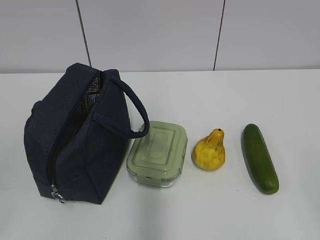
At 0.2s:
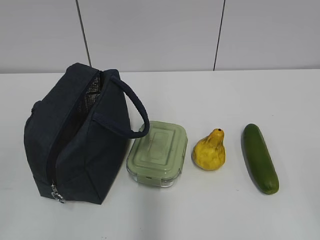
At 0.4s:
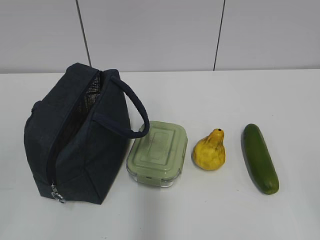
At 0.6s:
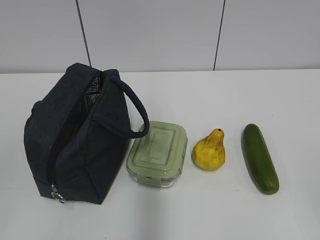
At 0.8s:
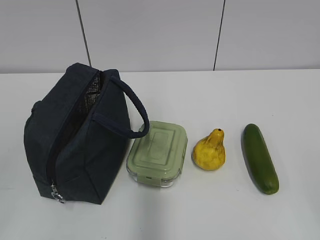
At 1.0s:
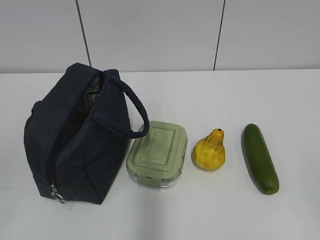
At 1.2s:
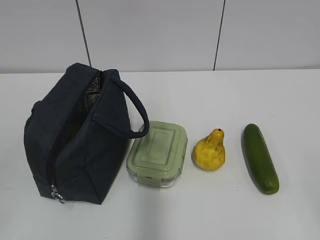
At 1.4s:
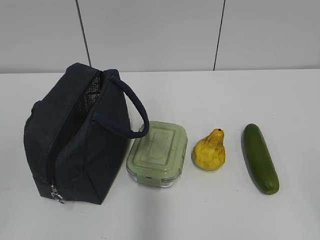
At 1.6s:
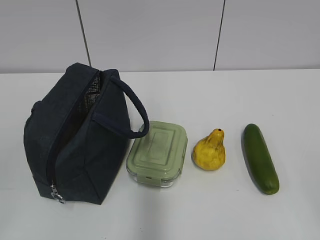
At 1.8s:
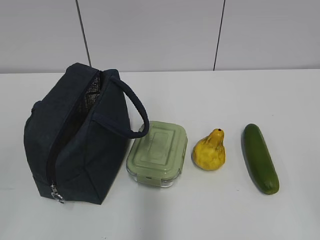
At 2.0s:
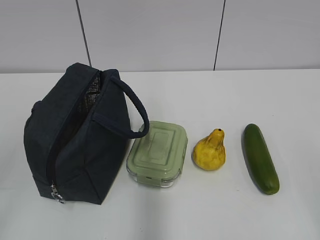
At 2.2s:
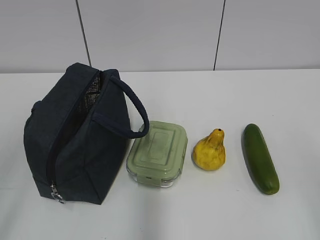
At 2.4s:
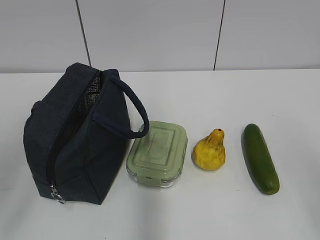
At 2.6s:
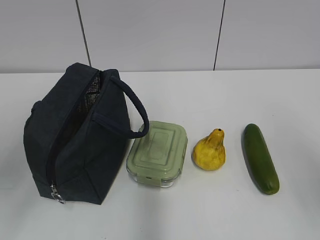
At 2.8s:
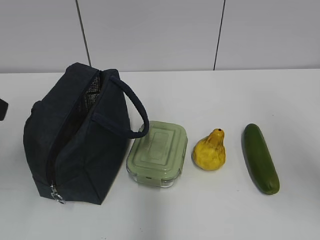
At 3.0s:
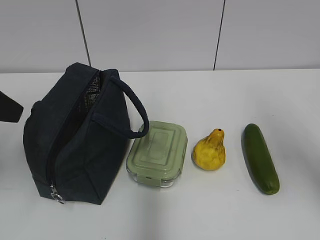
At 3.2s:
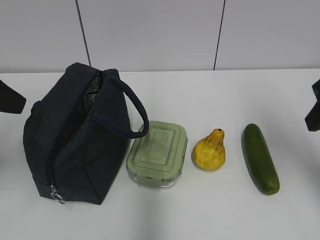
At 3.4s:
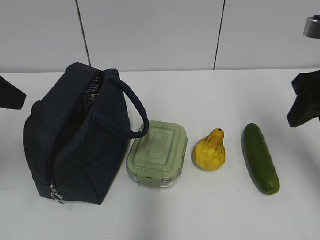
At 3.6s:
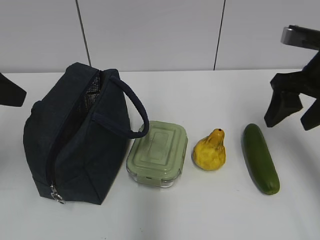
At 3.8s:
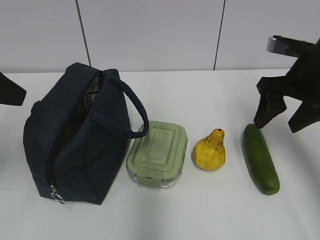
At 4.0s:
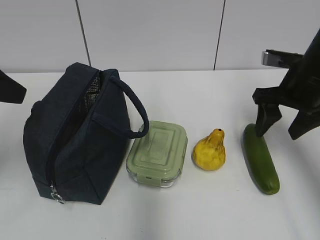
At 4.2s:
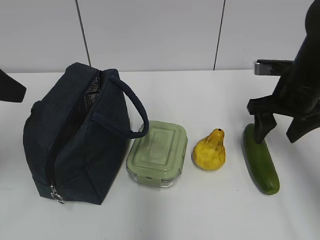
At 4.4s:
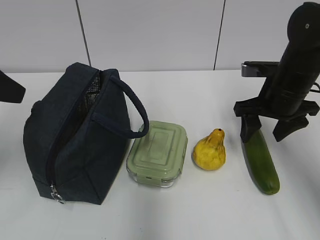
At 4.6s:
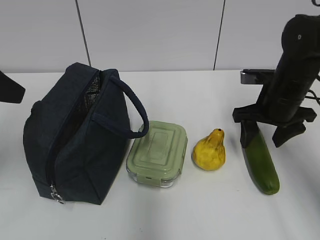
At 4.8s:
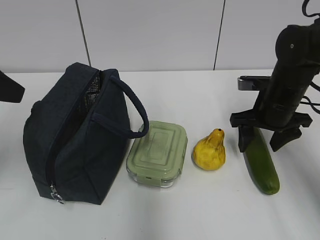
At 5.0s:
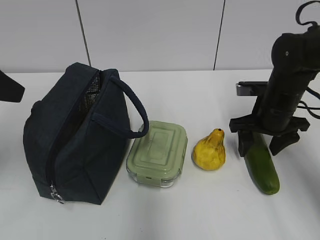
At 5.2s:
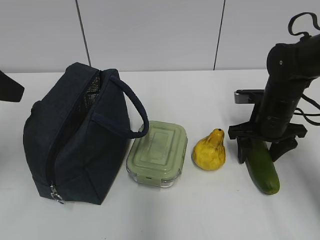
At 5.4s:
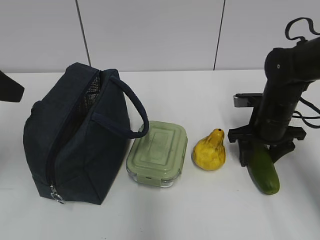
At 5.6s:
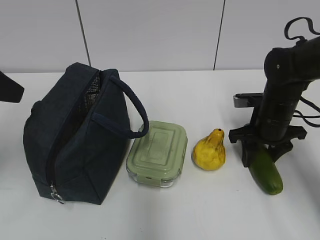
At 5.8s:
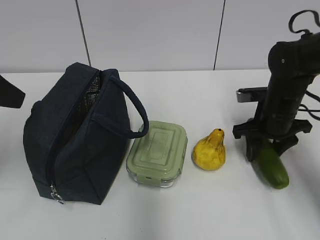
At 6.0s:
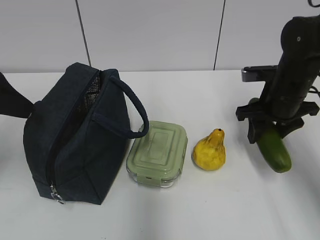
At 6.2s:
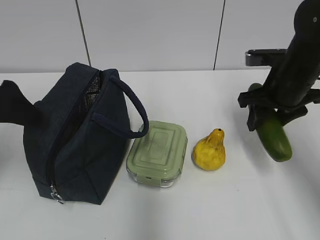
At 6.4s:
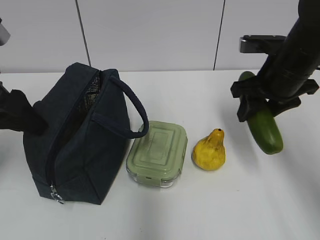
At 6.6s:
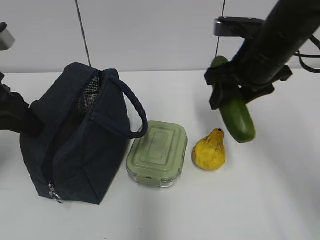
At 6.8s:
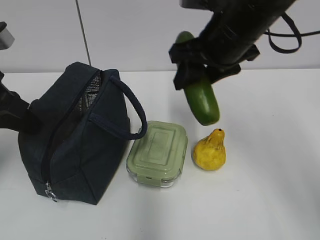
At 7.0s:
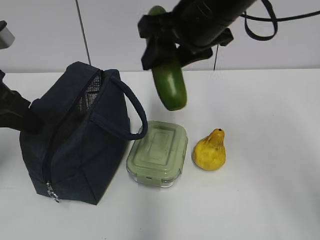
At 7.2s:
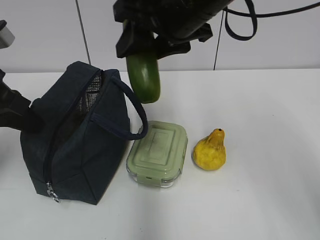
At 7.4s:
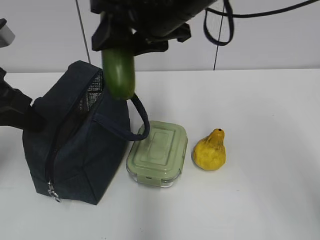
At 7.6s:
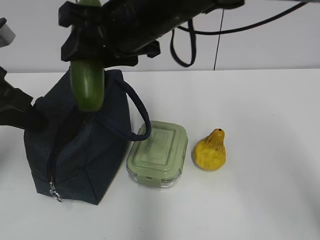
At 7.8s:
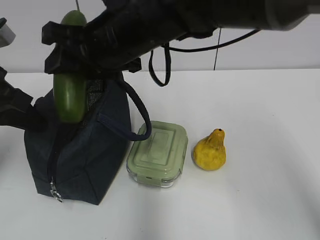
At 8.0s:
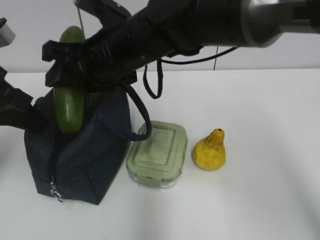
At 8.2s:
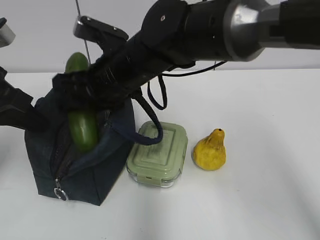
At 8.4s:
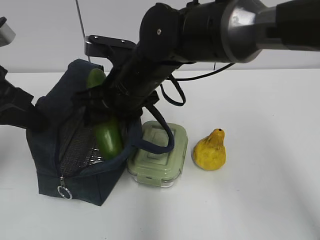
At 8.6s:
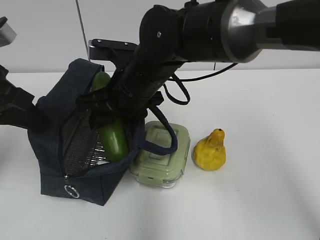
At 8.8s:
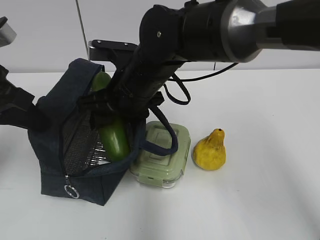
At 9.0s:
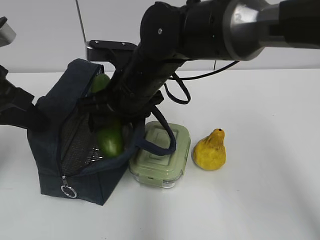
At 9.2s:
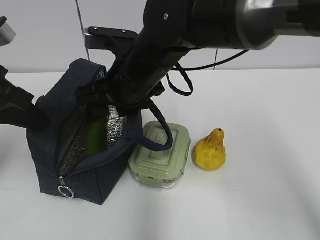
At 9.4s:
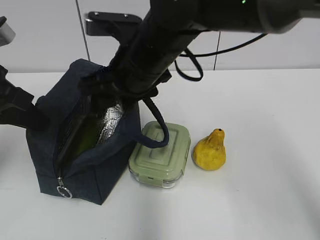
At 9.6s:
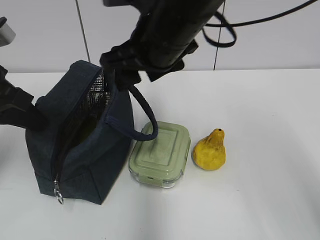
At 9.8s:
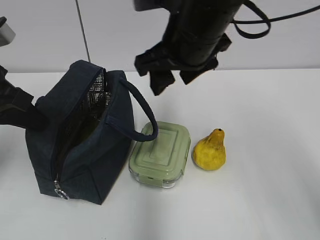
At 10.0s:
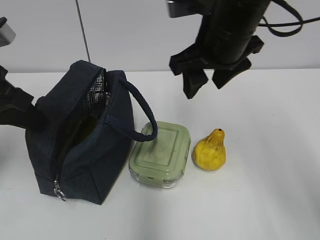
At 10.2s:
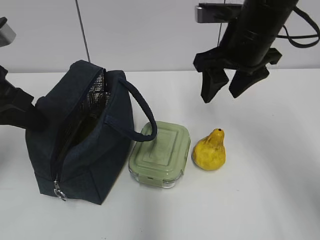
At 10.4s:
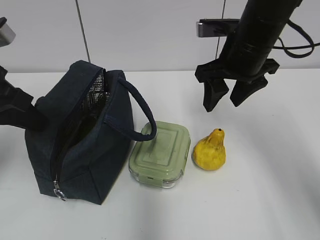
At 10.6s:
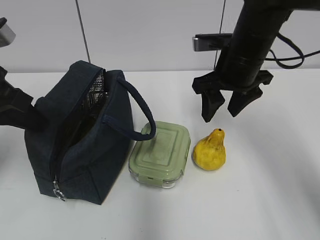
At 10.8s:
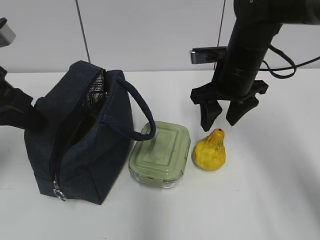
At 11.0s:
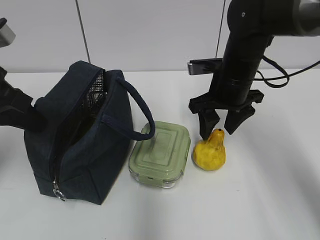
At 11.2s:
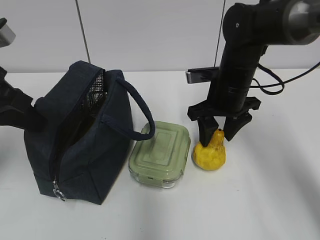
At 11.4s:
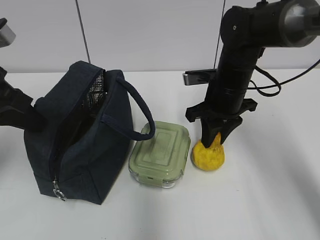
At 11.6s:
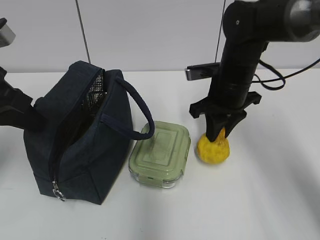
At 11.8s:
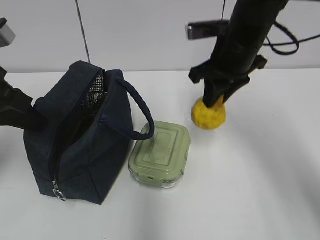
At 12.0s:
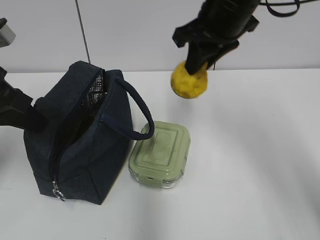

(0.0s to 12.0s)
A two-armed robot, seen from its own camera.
Step, 0.0s - 5.6s: Grab the cucumber with your right hand.
Step, 8.2s - 9.2s: Place it into the bag with your right hand.
Step, 9.4s - 11.2s: Grab the pear with your right hand.
1.6s - 3.0s: The grippers both shift forward by some 20 cm. The left gripper opens up.
3.0s - 4.4s: The right gripper heads forward and downward, covering about 20 cm.
6.0s - 7.6s: The right gripper goes approximately 25 cm to the left and upward. Meanwhile the left gripper closes its fingers.
7.6s - 9.0s: The right gripper moves downward, roughly 10 cm.
9.0s - 10.4s: The right gripper travels to the right by some 15 cm.
10.4s - 12.0s: The right gripper is displaced upward by about 5 cm, and closes its fingers.

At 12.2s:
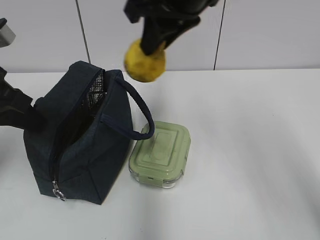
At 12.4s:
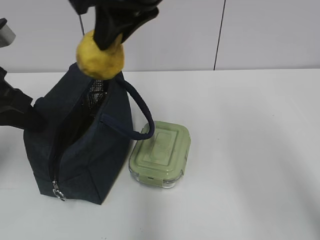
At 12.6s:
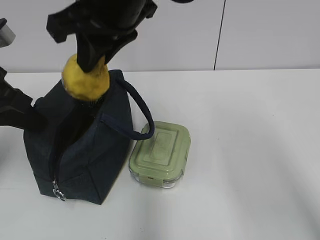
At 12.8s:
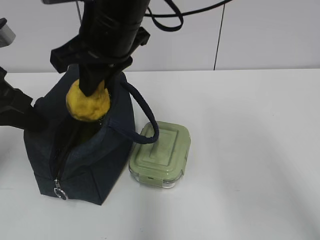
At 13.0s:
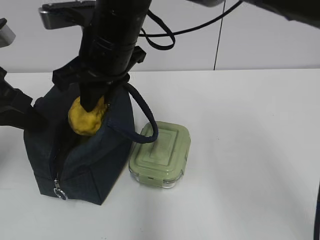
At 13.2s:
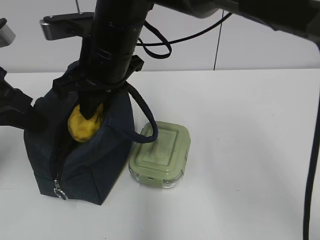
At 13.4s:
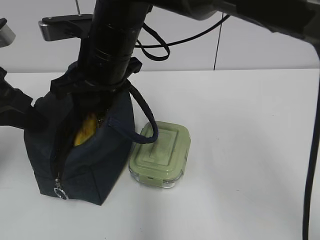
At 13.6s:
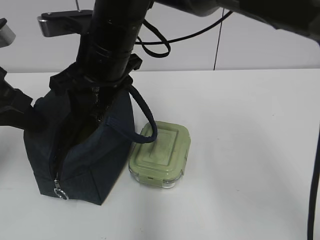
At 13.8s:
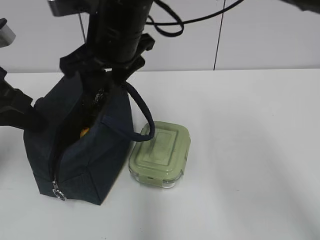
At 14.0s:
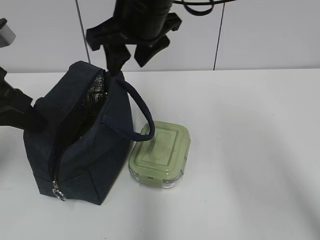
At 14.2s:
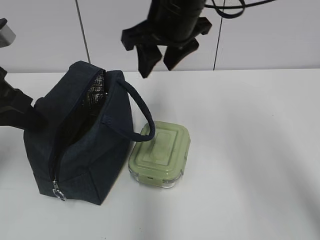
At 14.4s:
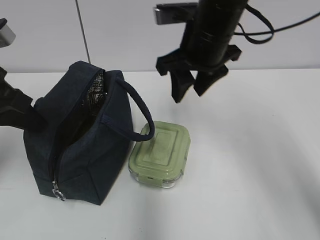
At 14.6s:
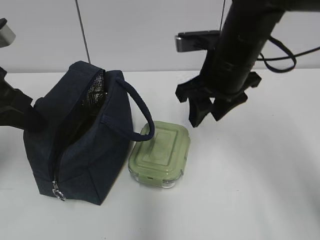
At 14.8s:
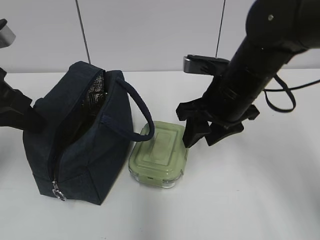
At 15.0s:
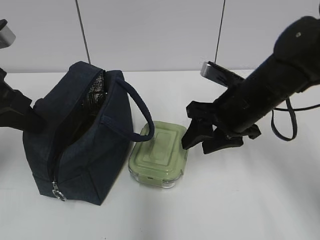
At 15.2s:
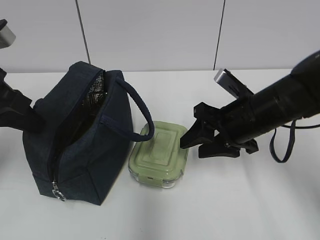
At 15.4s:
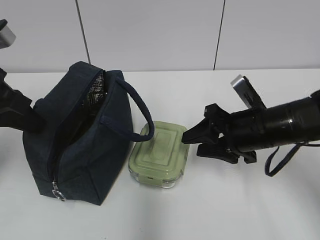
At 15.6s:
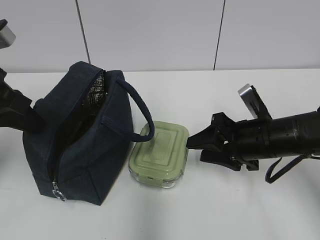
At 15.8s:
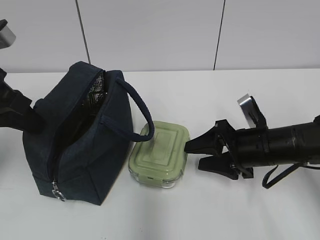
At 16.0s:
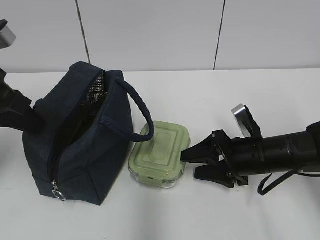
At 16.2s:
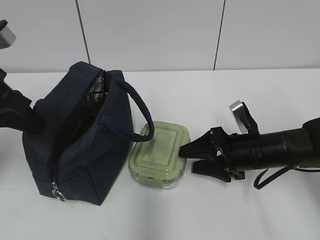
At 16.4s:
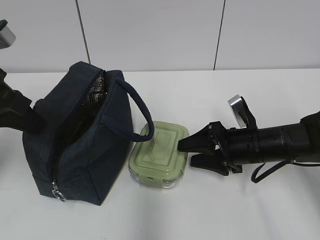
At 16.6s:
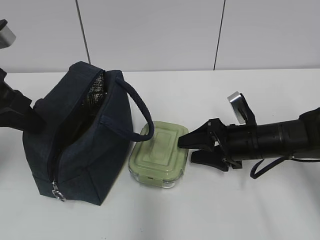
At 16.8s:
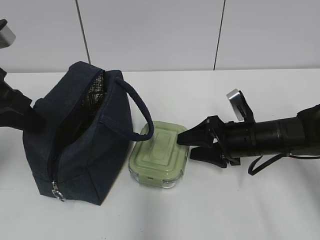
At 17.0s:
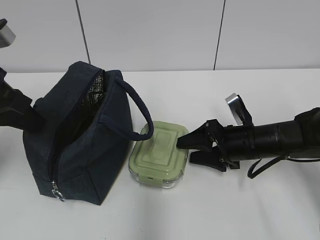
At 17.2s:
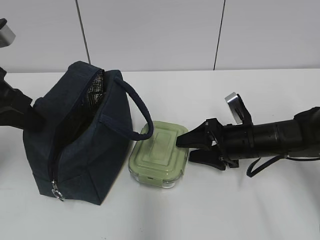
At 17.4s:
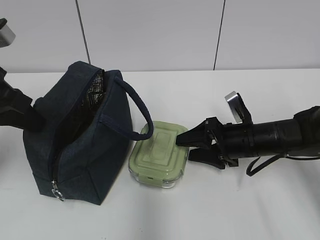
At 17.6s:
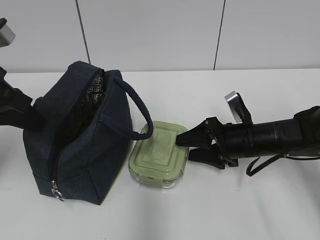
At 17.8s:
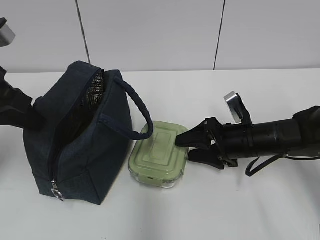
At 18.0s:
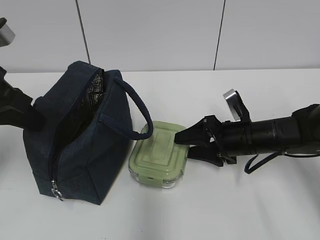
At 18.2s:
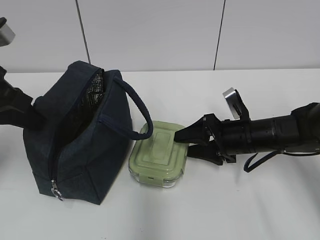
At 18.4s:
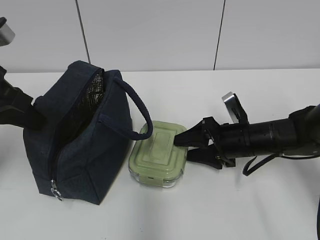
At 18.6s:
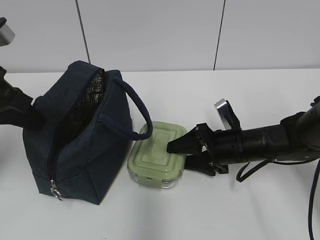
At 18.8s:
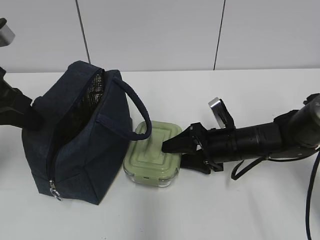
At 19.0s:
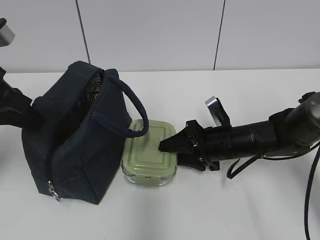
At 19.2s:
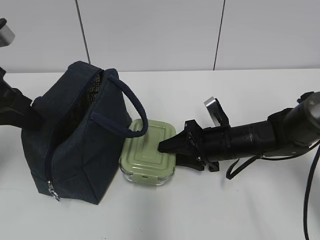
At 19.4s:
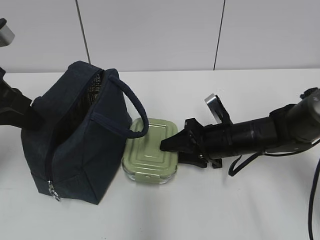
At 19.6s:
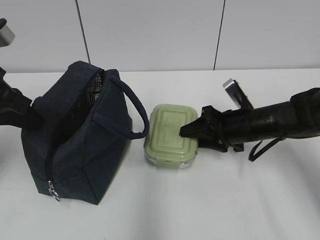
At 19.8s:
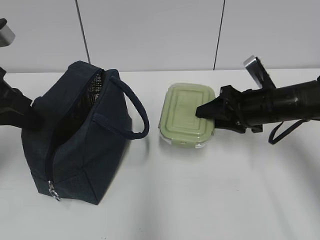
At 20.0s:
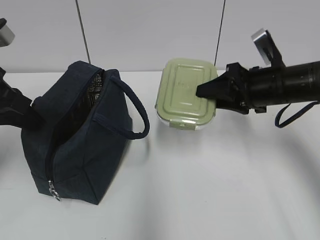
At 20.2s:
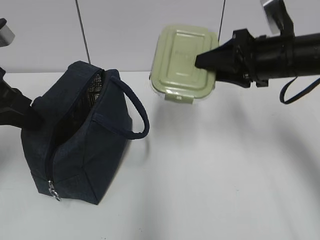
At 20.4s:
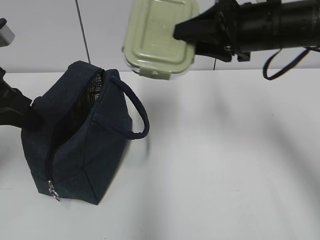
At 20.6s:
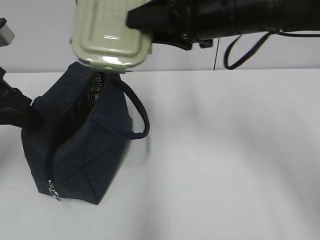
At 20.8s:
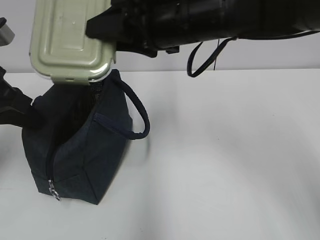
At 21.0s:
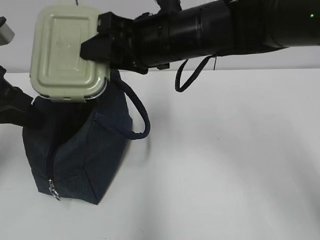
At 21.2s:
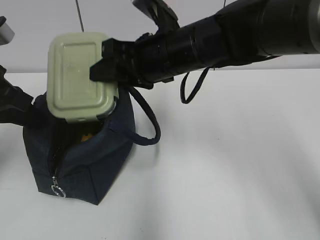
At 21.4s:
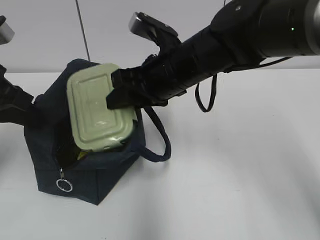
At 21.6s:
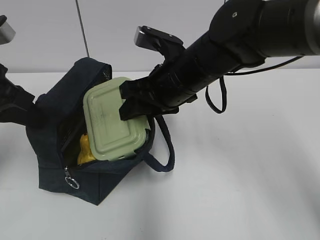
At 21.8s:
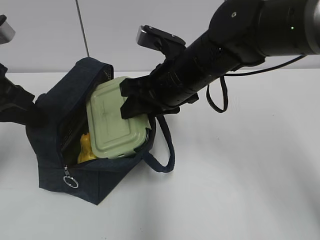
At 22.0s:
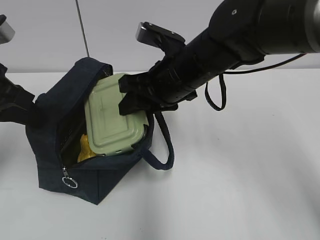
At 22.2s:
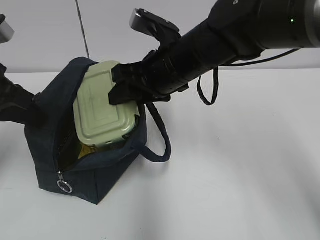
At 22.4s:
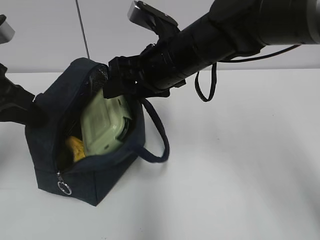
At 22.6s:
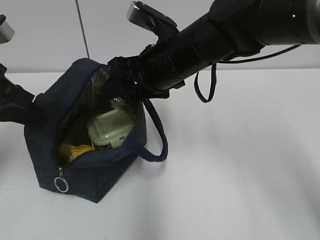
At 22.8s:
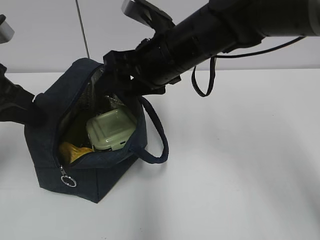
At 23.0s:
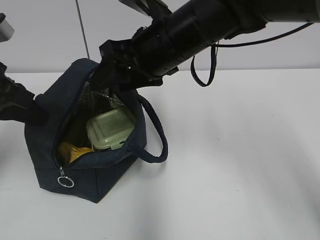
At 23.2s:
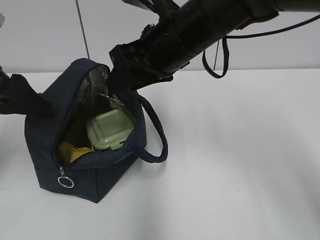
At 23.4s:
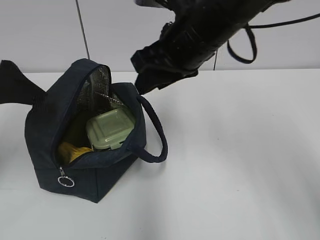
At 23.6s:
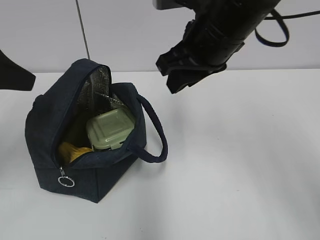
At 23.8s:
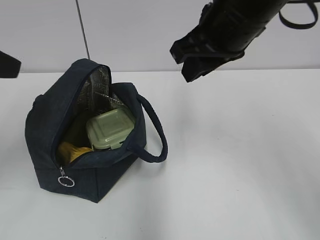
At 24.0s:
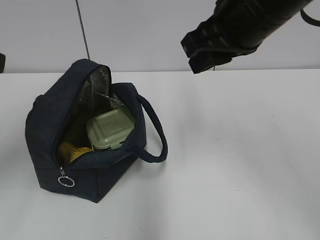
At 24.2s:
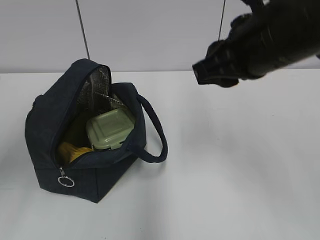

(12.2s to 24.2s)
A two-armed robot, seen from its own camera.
Step, 12.2s - 14.0s: Place it into the bag with your right hand.
Step, 14.2s - 19.0s: Grab the lunch box with your right hand.
Step, 19.2s - 22.8s: Place it into the bag with your right hand.
12.2s - 13.8s: The right gripper is displaced to the left and downward by about 10 cm, and opens.
13.8s - 15.2s: The right gripper shifts roughly 25 cm to the right and downward.
15.2s - 16.6s: The right gripper shifts approximately 10 cm downward.
16.6s - 18.2s: The grippers stay close to where they were, moving slightly.
18.2s - 19.8s: The right gripper travels upward by approximately 5 cm.
19.8s - 21.2s: The right gripper is displaced to the left and upward by approximately 20 cm.
22.6s - 24.2s: The right gripper is displaced to the right, backward and upward by approximately 15 cm, and closes. Meanwhile the left gripper travels backward and upward by roughly 10 cm, and opens its fingers.
